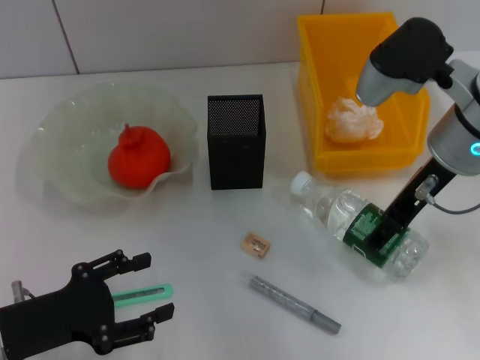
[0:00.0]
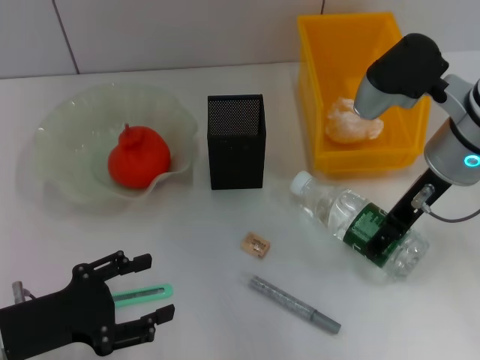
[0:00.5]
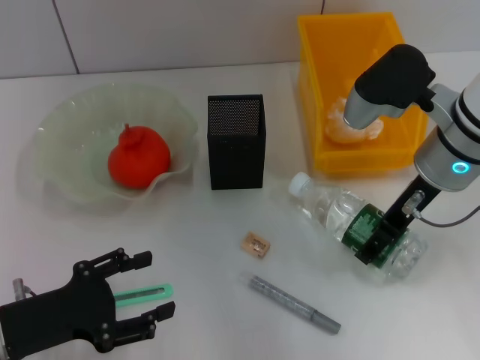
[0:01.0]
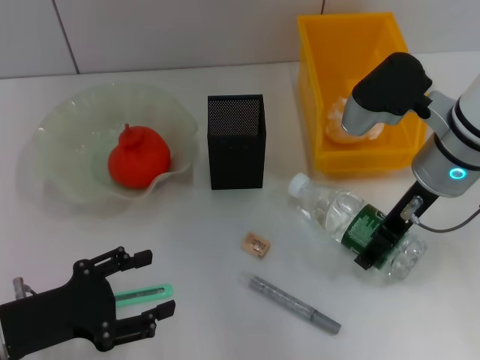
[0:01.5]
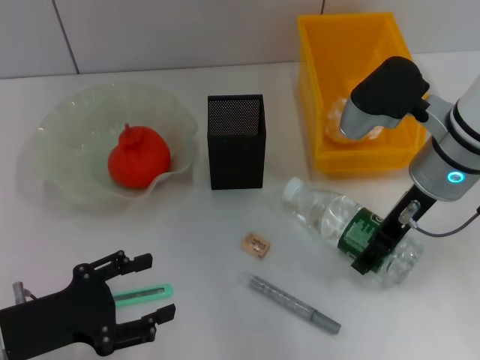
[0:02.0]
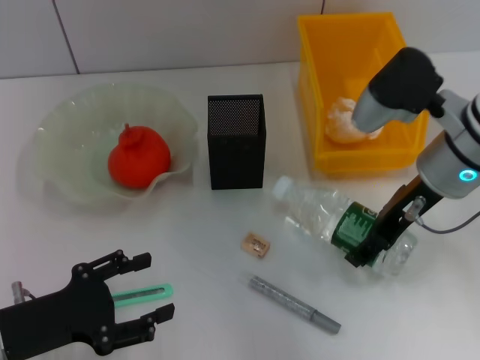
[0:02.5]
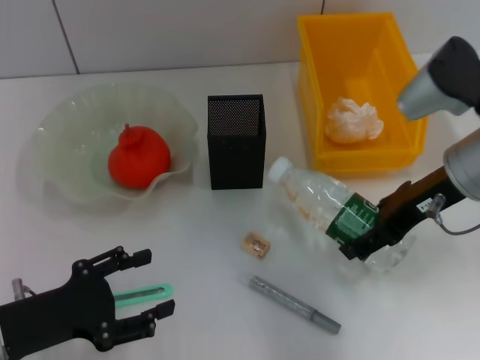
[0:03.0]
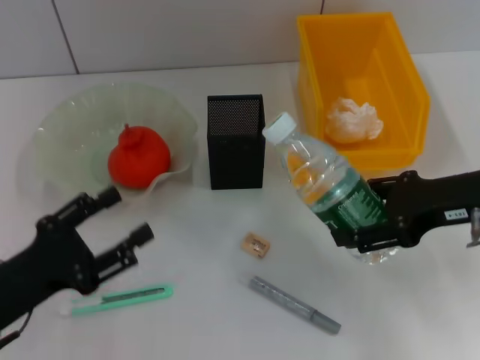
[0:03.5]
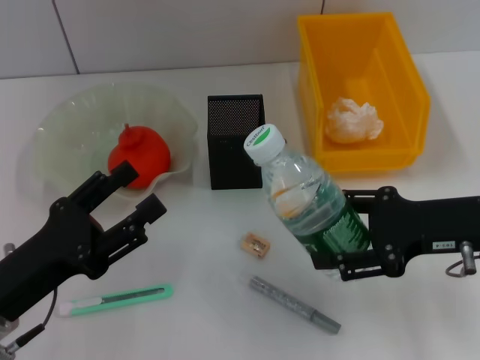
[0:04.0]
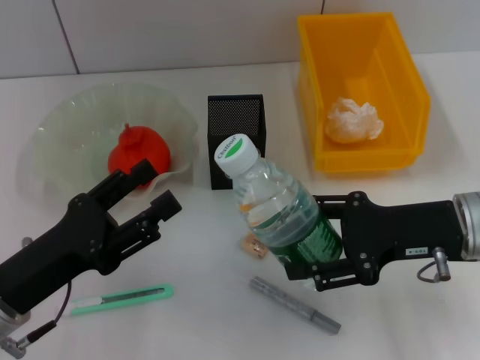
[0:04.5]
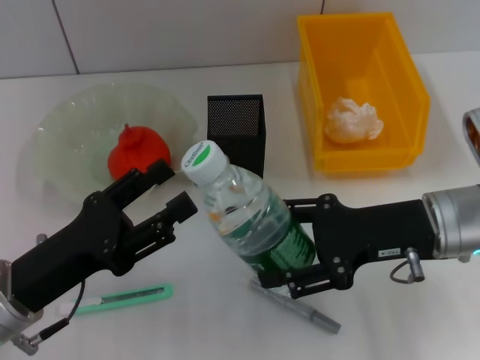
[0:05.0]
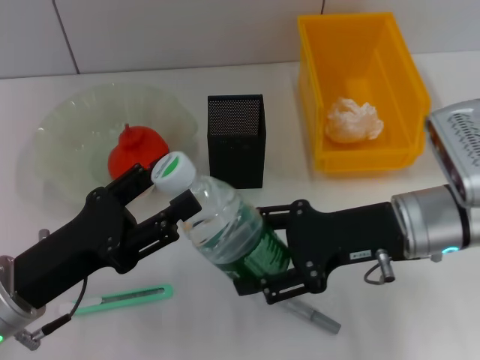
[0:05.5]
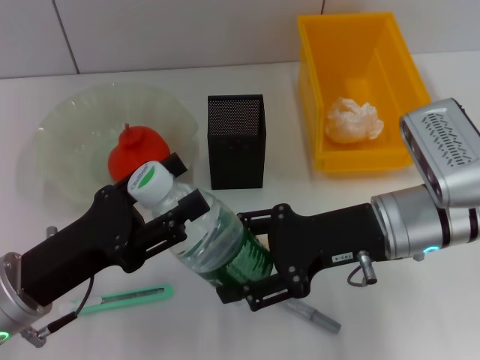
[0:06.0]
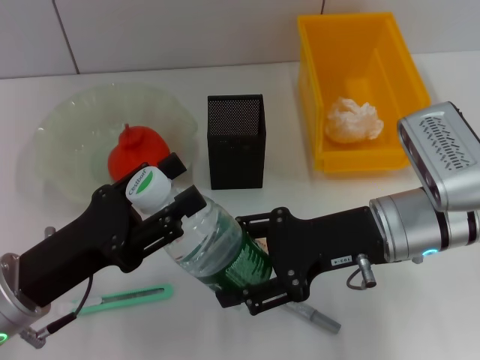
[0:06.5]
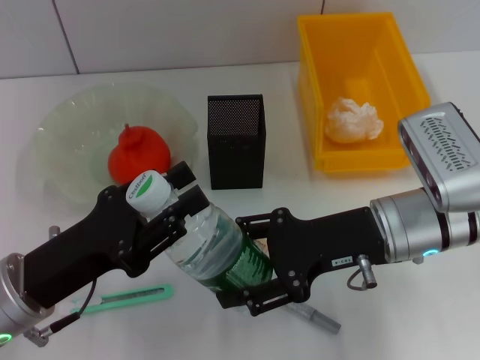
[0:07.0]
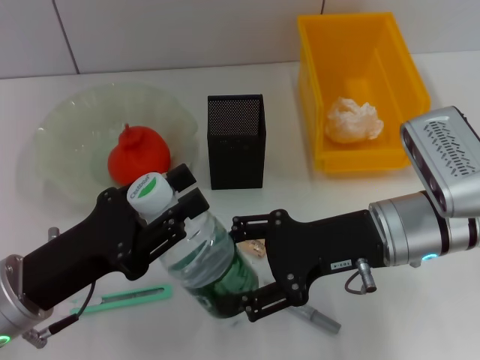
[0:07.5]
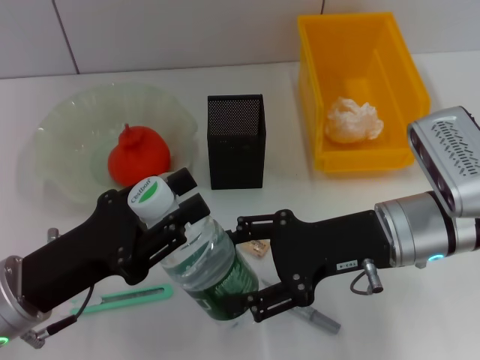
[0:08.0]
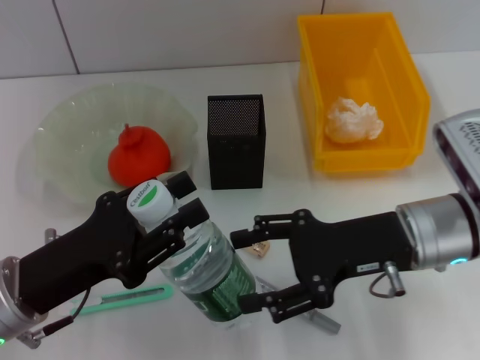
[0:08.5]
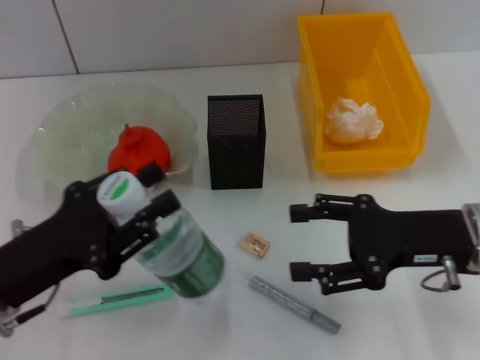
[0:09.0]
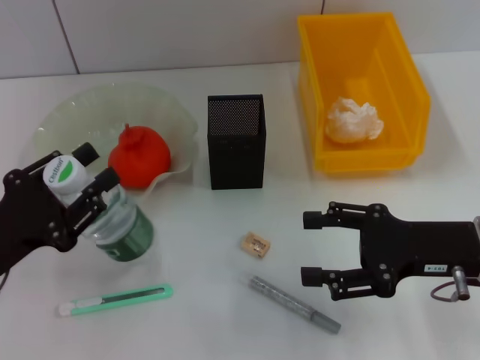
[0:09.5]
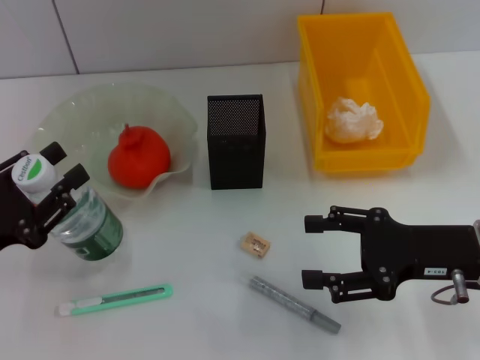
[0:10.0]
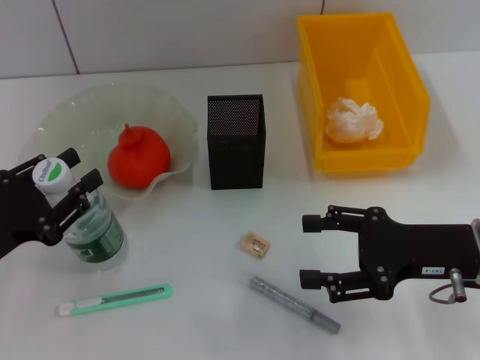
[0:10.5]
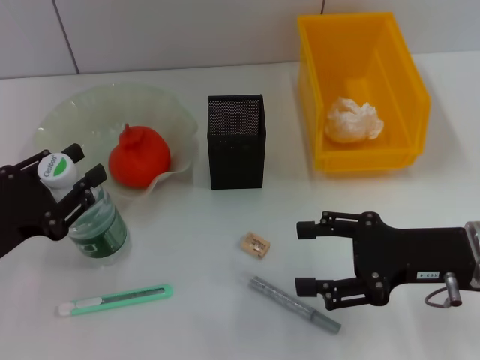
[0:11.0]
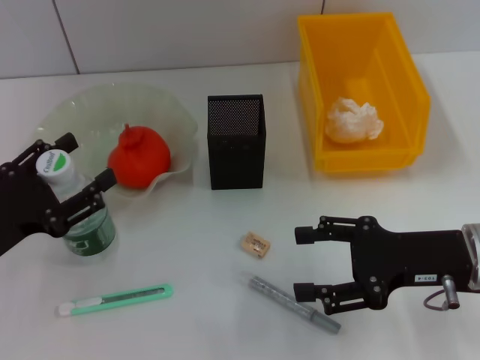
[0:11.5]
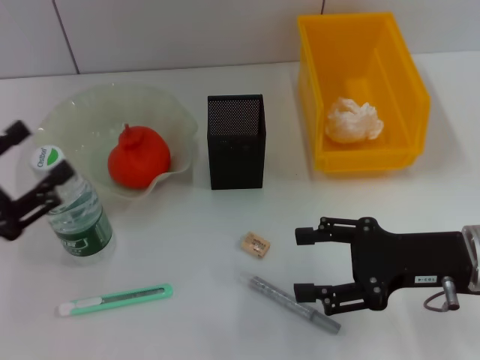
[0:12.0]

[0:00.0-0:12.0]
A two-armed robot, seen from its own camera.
Step, 0:00.0 to 0:02.0: Grab the water bottle with the right hand.
Step, 0:02.5 to 0:08.5: Pass the water bottle from the right hand to the left hand.
Step, 0:09.0 to 0:11.5: Place the water bottle on the table with the left hand.
0:00.0 to 0:02.0: The grippers make only small movements.
0:02.0 to 0:04.0: The right gripper moves backward and to the right, approximately 10 cm.
0:04.0 to 0:06.0: The right gripper heads to the left, covering about 10 cm.
0:06.0 to 0:08.0: The left gripper closes its fingers.
0:08.0 to 0:10.0: The left gripper travels to the left by approximately 10 cm; the right gripper heads to the right, covering some 10 cm.
0:10.0 to 0:12.0: The left gripper opens its fingers.

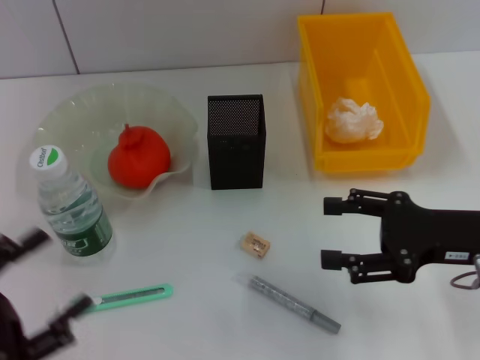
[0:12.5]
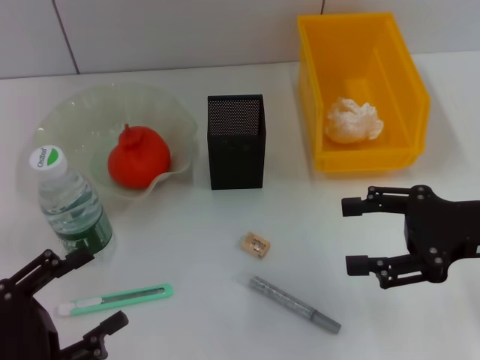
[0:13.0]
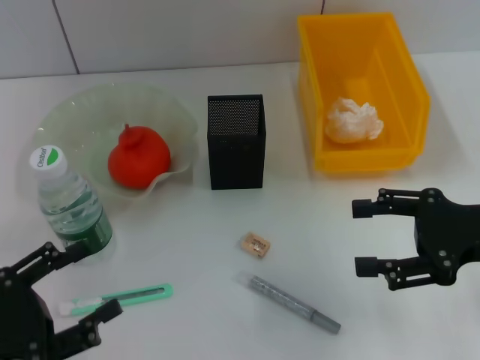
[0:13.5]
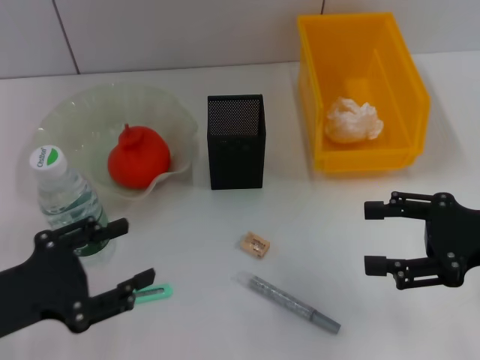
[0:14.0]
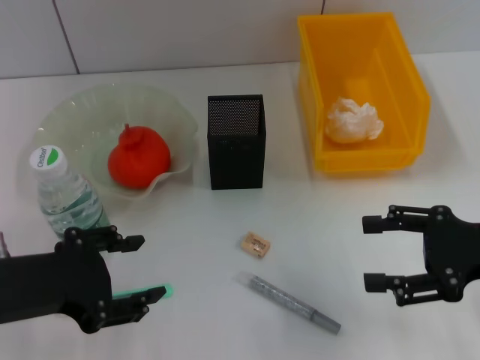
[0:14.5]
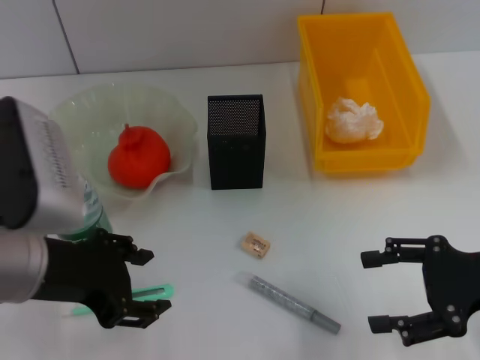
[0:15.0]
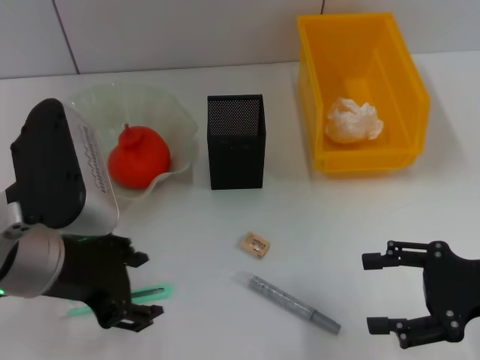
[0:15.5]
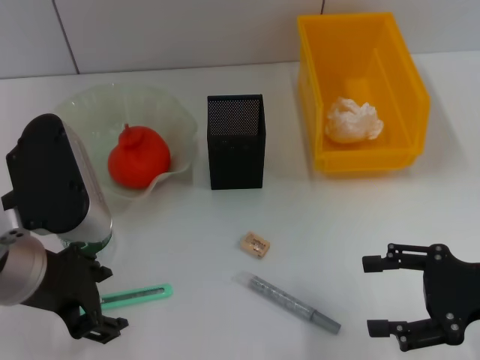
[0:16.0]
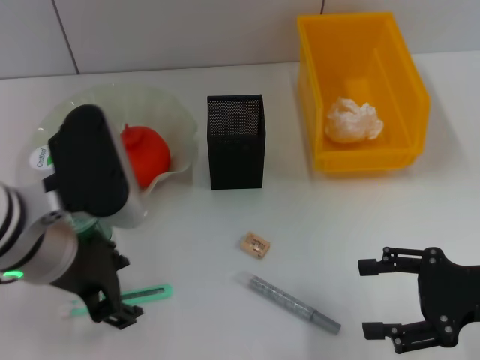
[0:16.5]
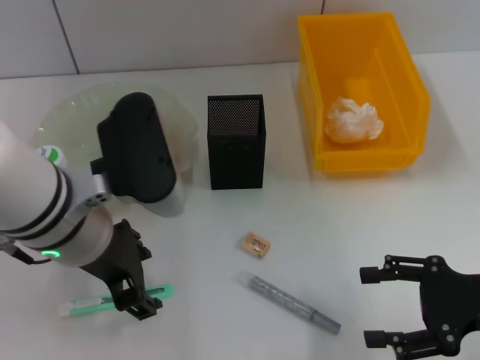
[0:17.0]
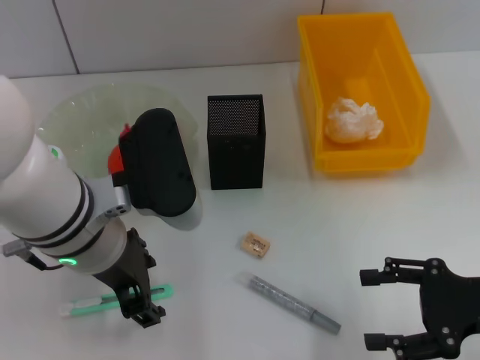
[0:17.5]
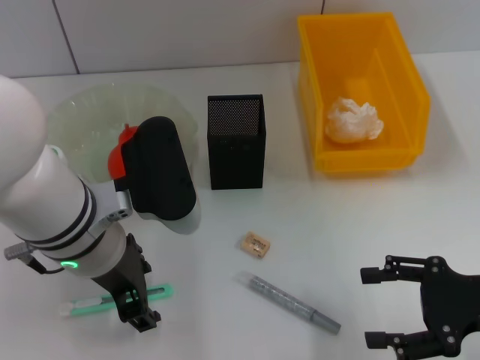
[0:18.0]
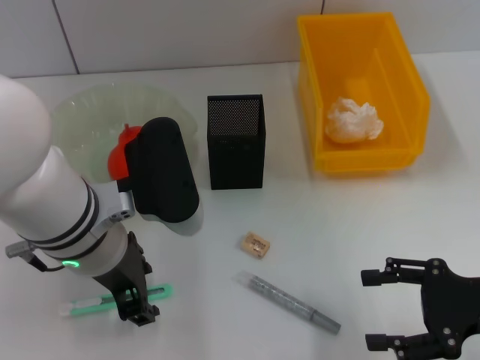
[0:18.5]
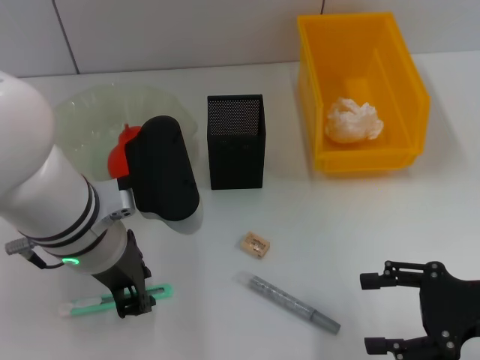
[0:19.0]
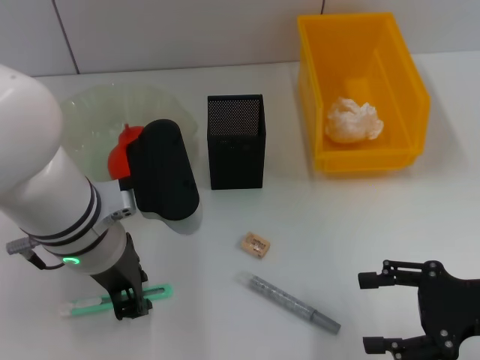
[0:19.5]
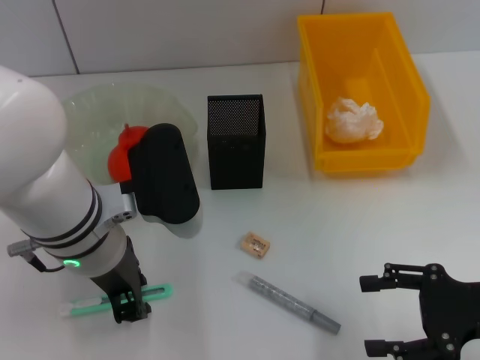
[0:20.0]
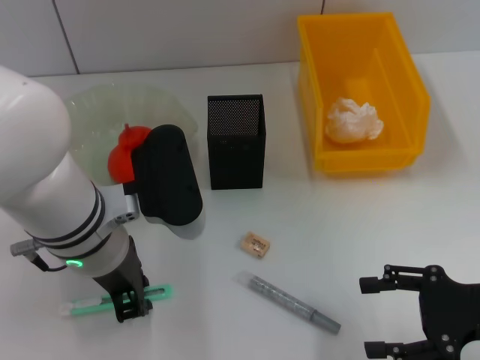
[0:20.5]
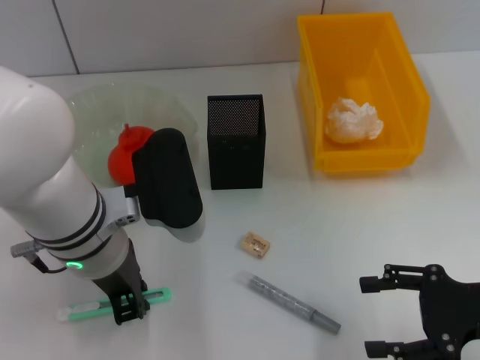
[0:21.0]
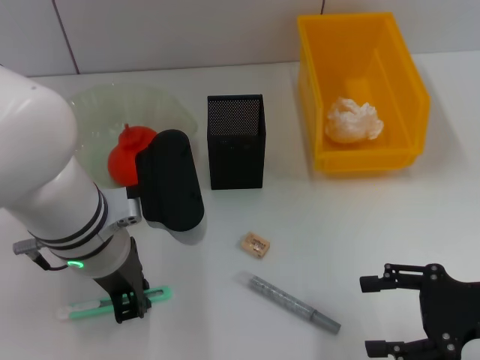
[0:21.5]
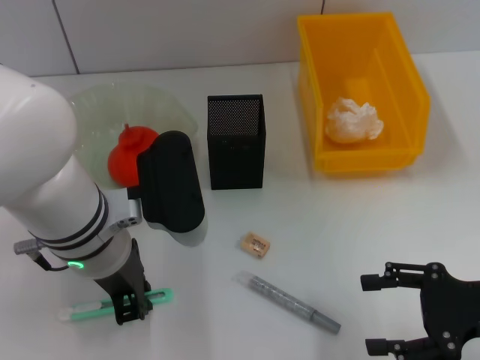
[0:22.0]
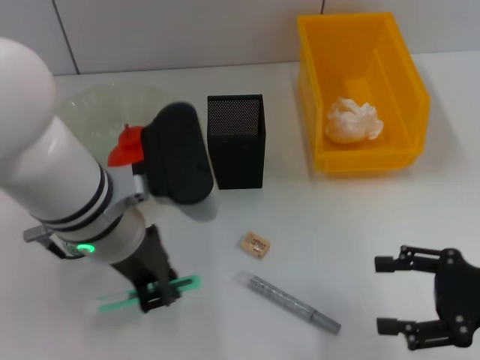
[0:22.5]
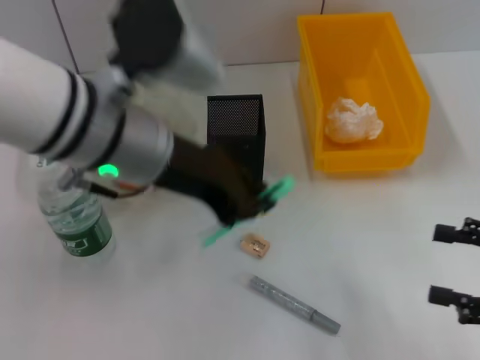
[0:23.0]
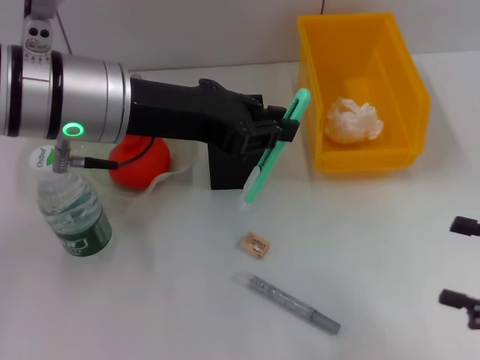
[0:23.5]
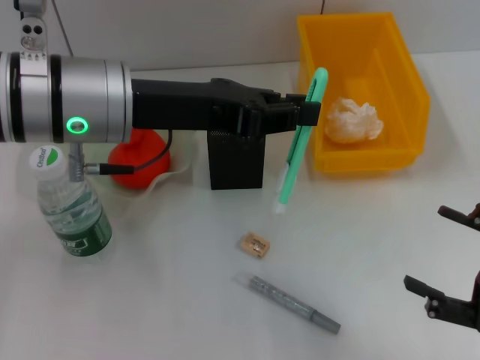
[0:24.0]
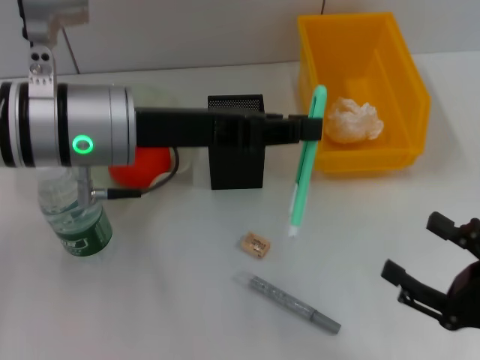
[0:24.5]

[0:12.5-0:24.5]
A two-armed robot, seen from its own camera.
Step, 0:12.5 to 0:22.0: Grab the blue utility knife with the left hand.
0:12.5 to 0:14.5: The left gripper moves to the right, upward and forward, about 15 cm.
0:14.5 to 0:16.5: The left gripper heads to the right and forward, covering some 10 cm.
0:16.5 to 0:18.5: The grippers stay close to where they were, moving slightly.
0:18.5 to 0:20.5: The left gripper closes.
0:20.5 to 0:22.5: The grippers stay close to where they were, moving slightly.
0:22.5 to 0:24.5: The right gripper goes some 5 cm backward. The left gripper moves approximately 5 cm.

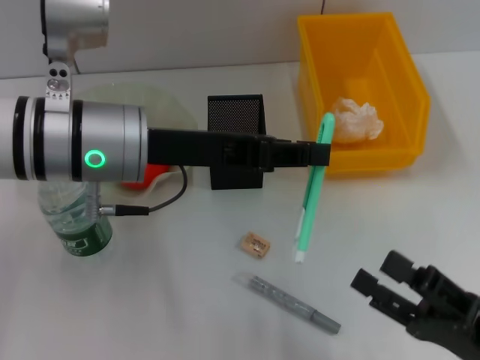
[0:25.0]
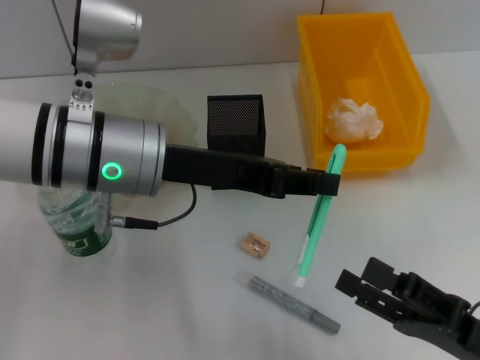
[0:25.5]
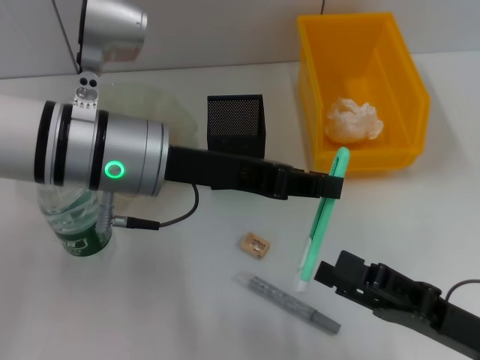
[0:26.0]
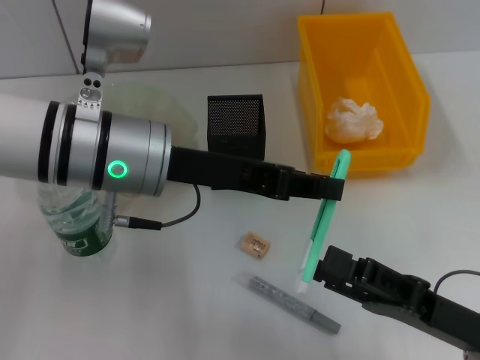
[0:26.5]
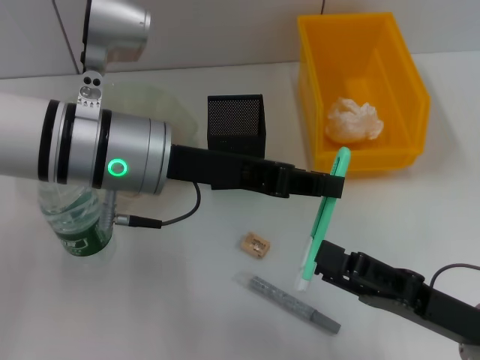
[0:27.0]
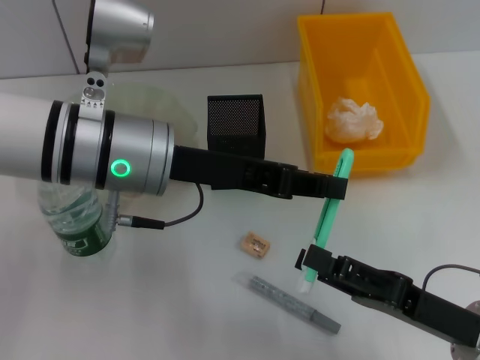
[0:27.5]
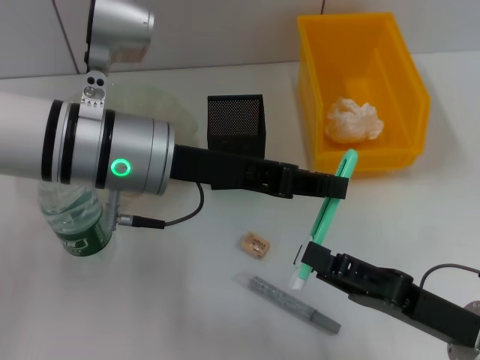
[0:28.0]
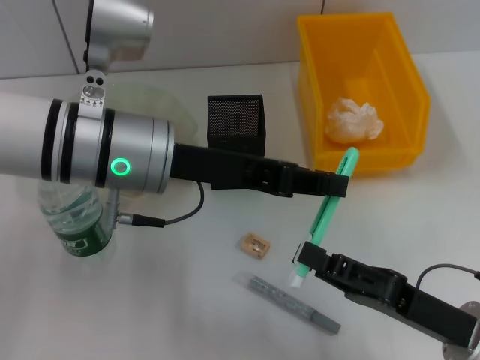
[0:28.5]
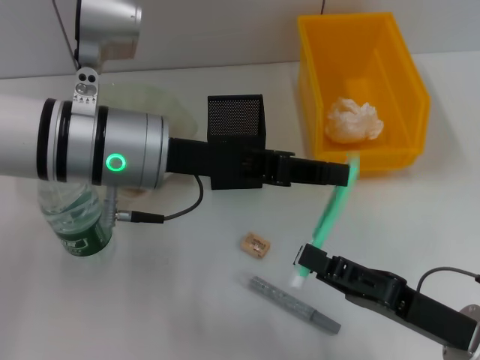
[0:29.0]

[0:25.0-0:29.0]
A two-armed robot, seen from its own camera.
Step, 0:25.0 to 0:29.0: Pass the blue utility knife from the left hand to the right hand.
0:25.0 to 0:27.0: The right gripper shifts by about 5 cm.
0:27.0 to 0:29.0: The right gripper closes its fingers.
